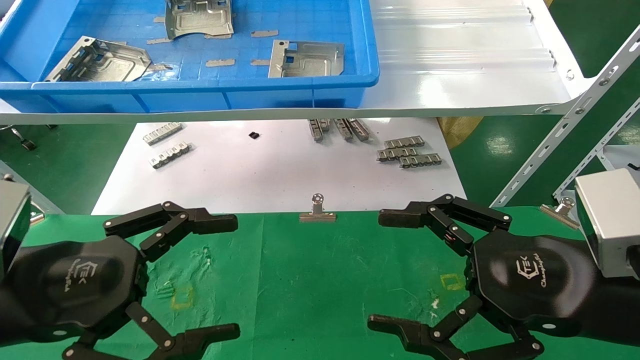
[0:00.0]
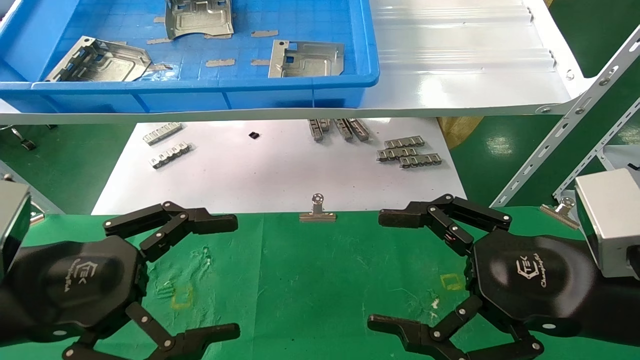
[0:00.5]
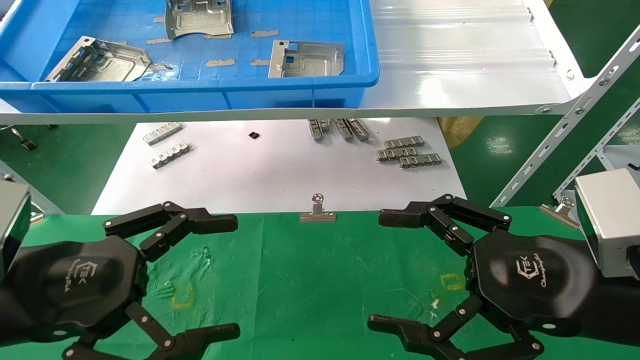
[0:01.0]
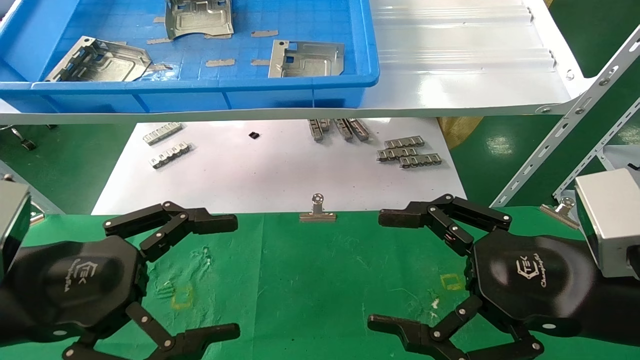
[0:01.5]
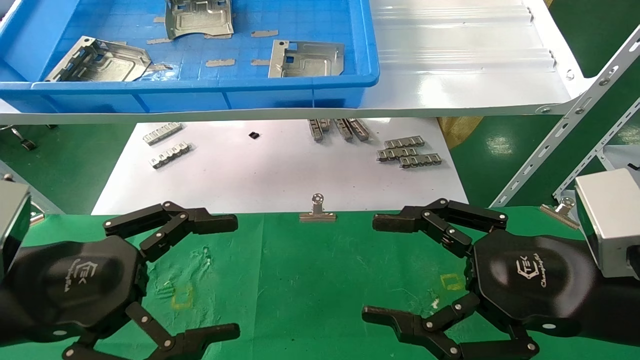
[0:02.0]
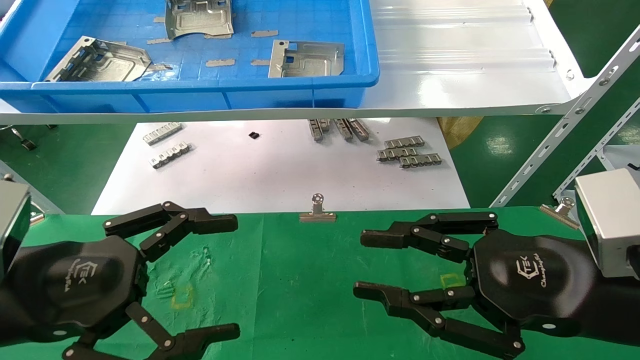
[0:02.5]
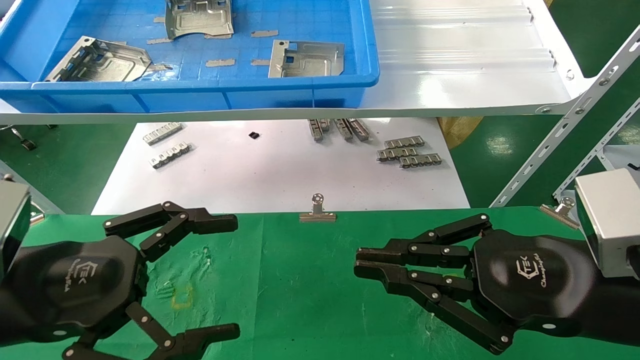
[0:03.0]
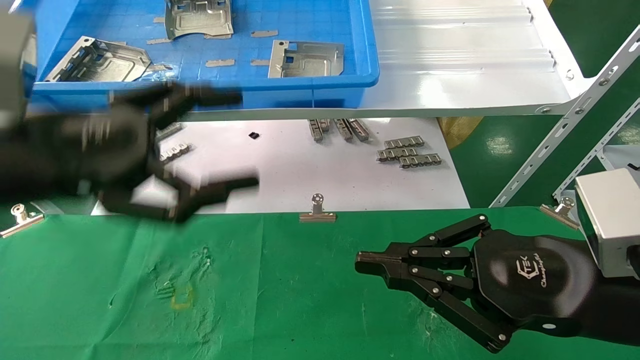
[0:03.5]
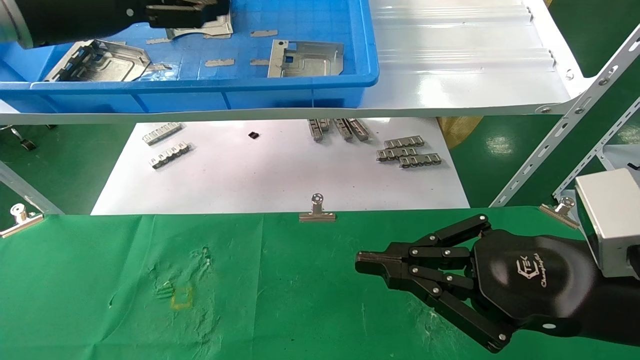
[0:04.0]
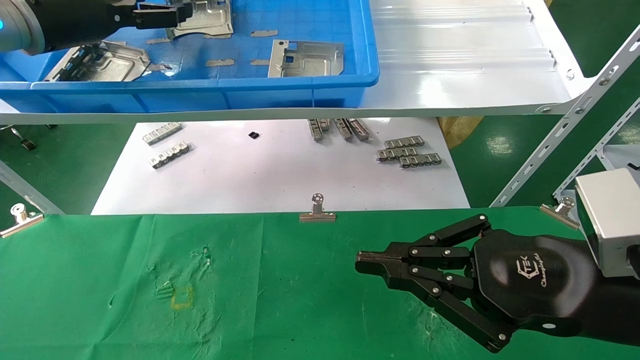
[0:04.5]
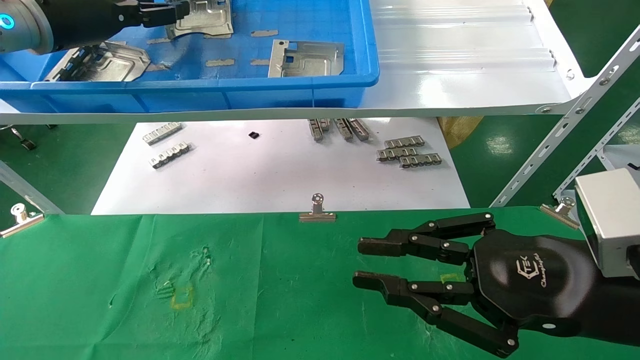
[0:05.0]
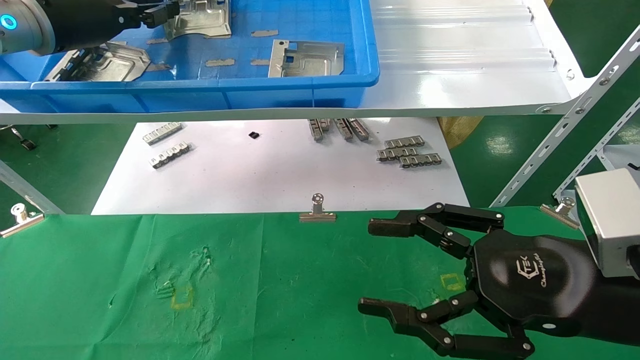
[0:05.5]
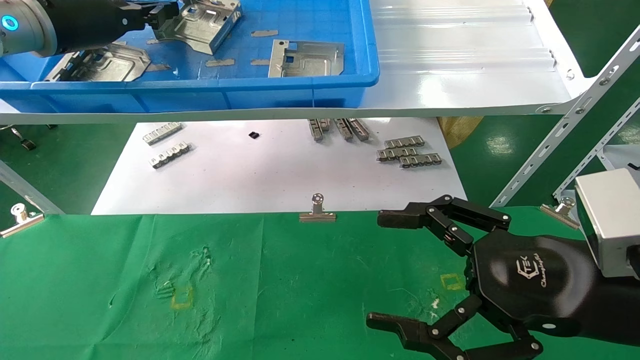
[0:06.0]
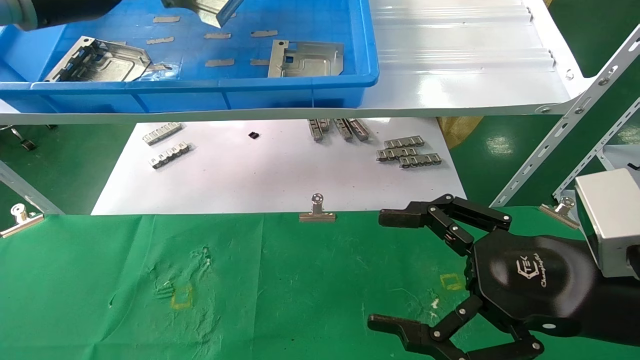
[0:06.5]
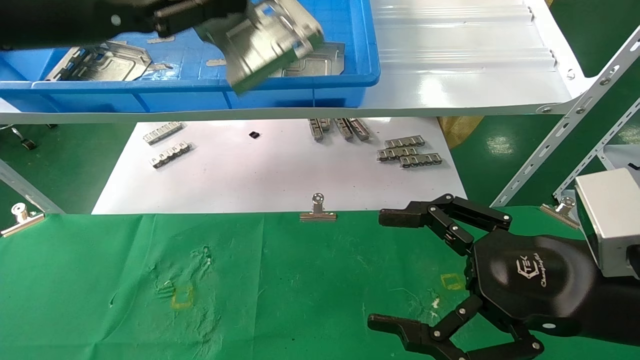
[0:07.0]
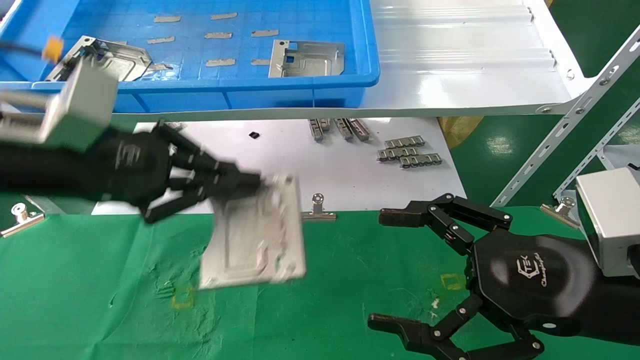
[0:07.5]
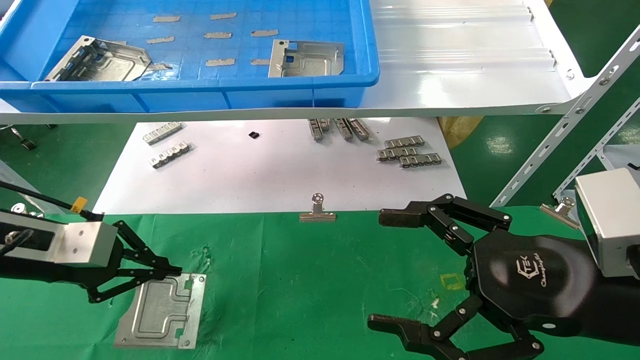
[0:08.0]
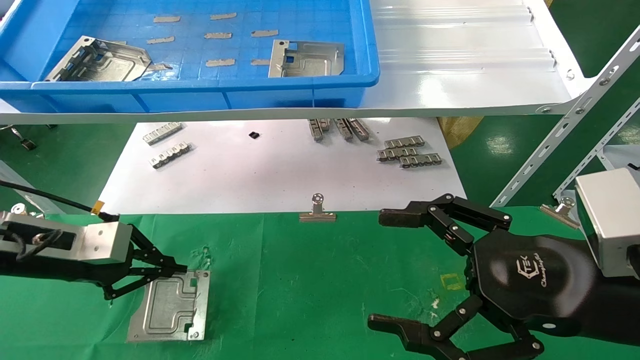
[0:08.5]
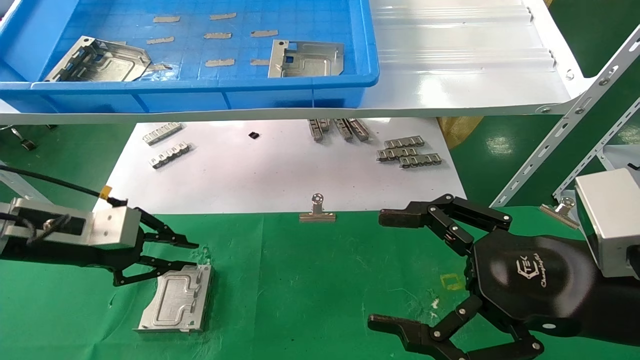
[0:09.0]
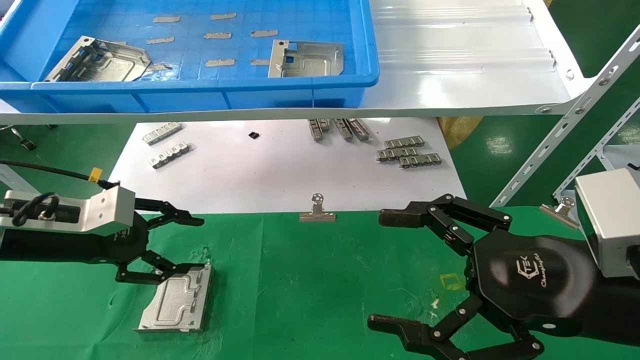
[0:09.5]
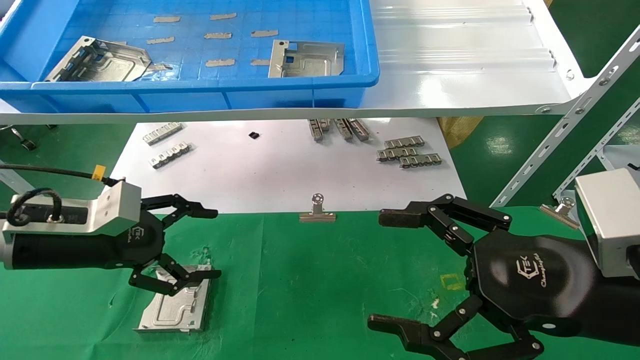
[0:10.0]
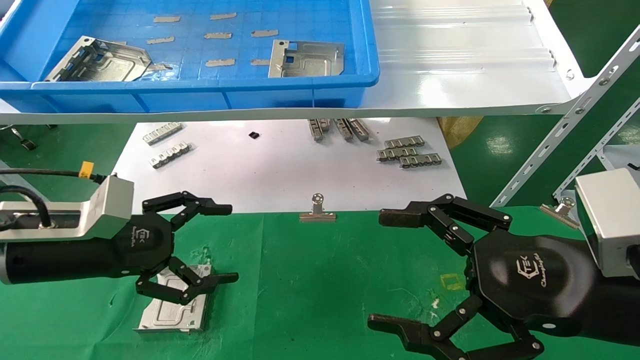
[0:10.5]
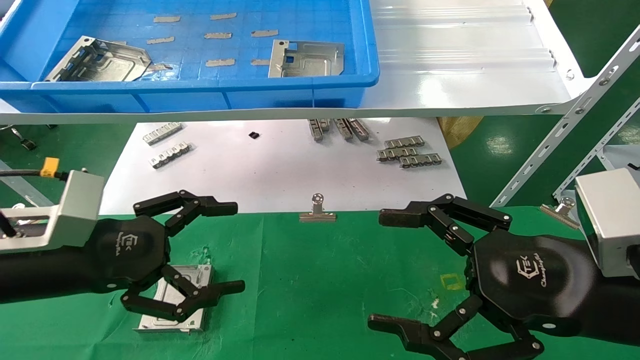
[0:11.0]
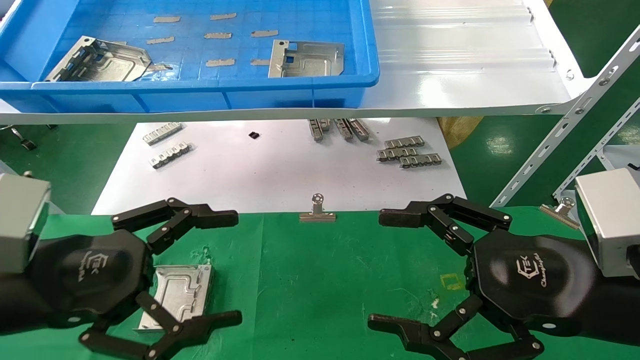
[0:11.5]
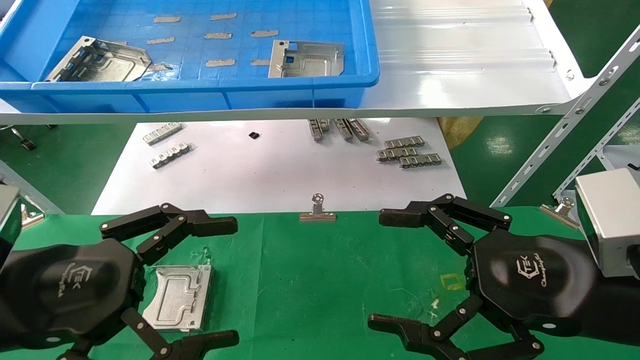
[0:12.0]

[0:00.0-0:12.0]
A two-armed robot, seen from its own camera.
Task of the whole recording: use the mechanical arm to pick up the parts and place them on the table.
Step, 0:03.5 to 0:06.0: Pick up the hard drive bracket from the feeding area.
Step, 0:06.5 to 0:09.0: Place the hard drive bracket into the box.
0:00.0 to 0:02.0: The two grippers keep their place.
0:02.0 to 0:04.0: The left gripper travels upward and forward by approximately 30 cm. Meanwhile the right gripper closes.
0:04.0 to 0:06.0: The left gripper shifts roughly 5 cm forward, and closes its fingers. Meanwhile the right gripper opens up.
0:06.0 to 0:08.0: The left gripper shifts roughly 25 cm downward and backward.
0:08.0 to 0:10.0: The left gripper opens up.
0:10.0 to 0:12.0: The left gripper is displaced backward by approximately 15 cm.

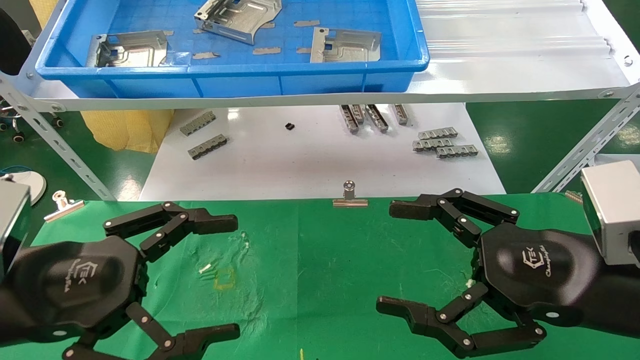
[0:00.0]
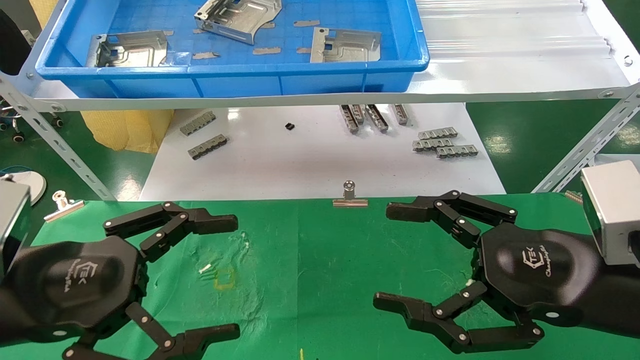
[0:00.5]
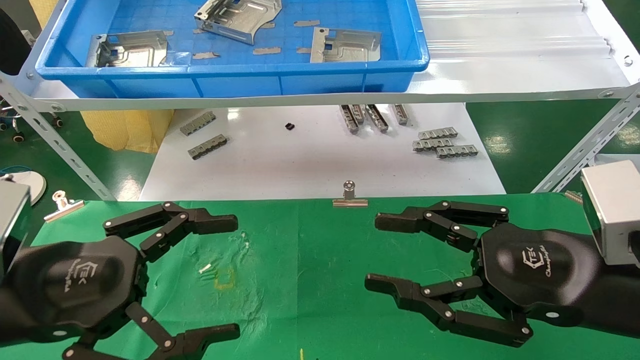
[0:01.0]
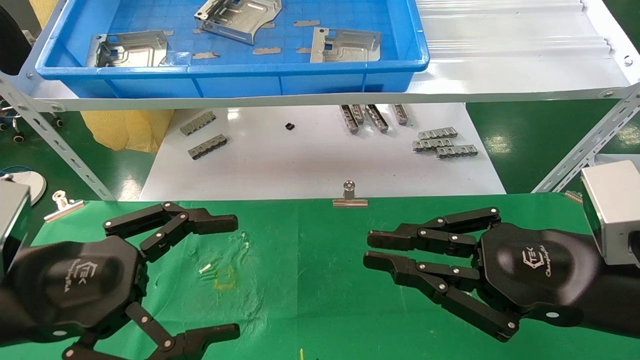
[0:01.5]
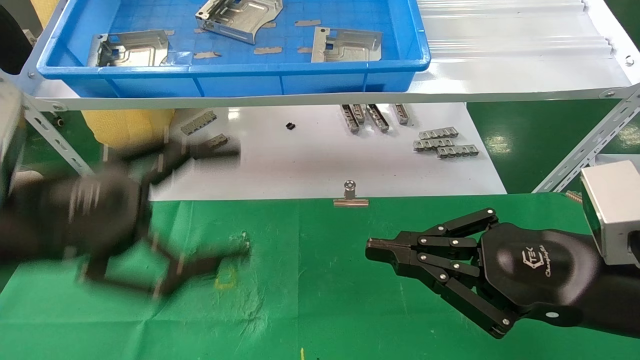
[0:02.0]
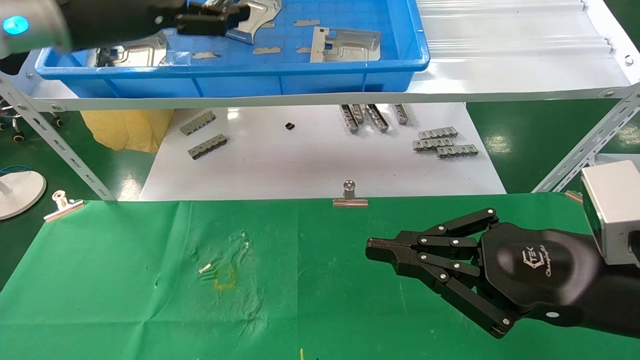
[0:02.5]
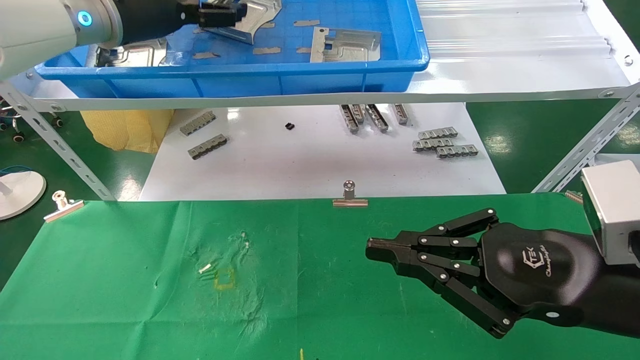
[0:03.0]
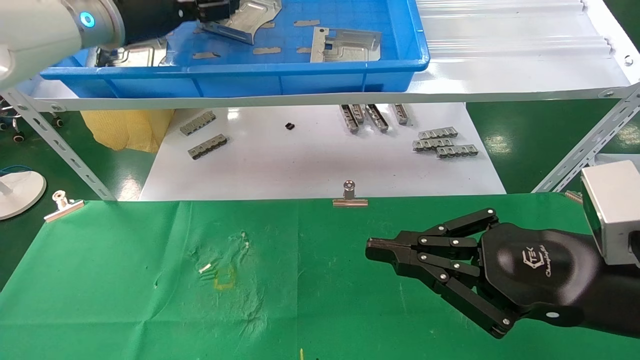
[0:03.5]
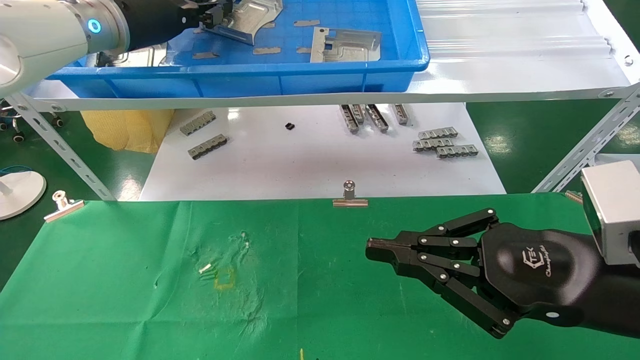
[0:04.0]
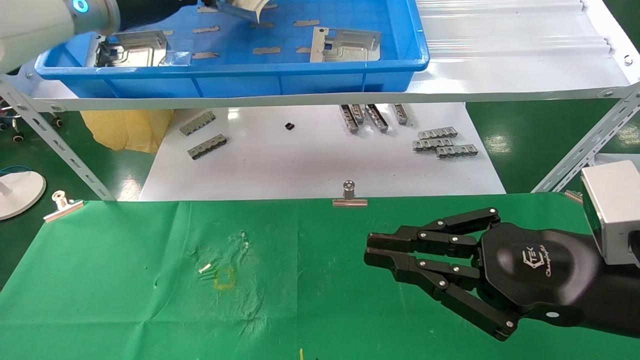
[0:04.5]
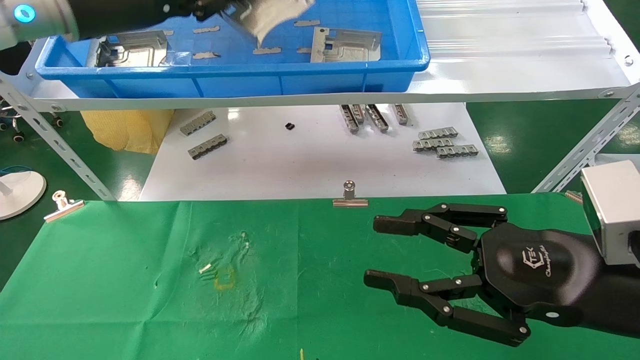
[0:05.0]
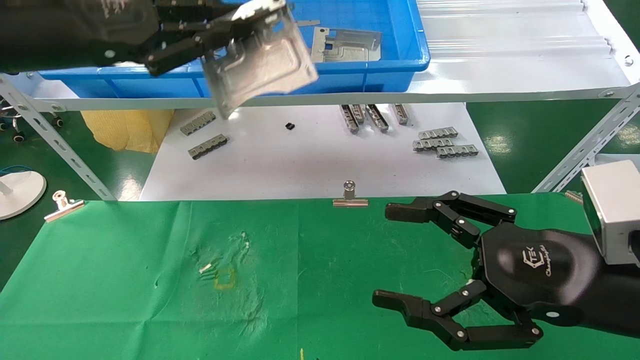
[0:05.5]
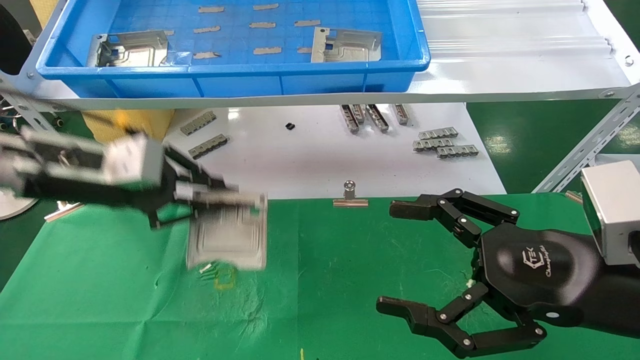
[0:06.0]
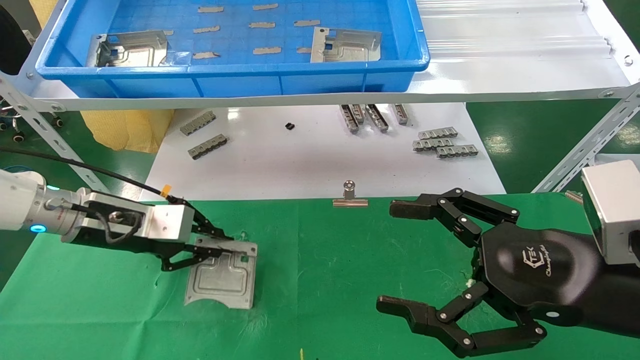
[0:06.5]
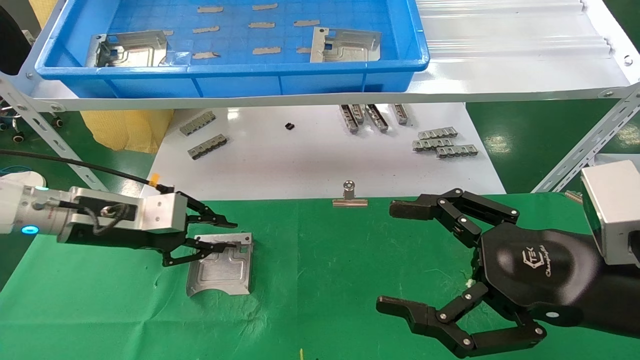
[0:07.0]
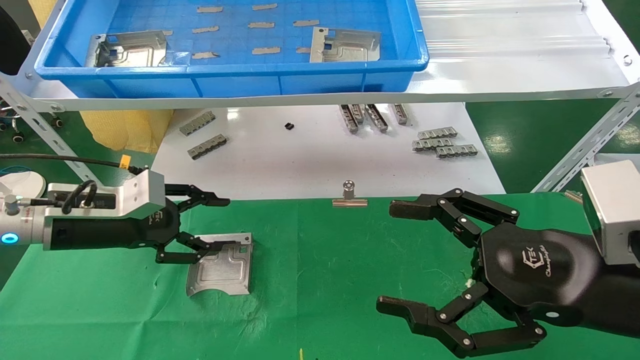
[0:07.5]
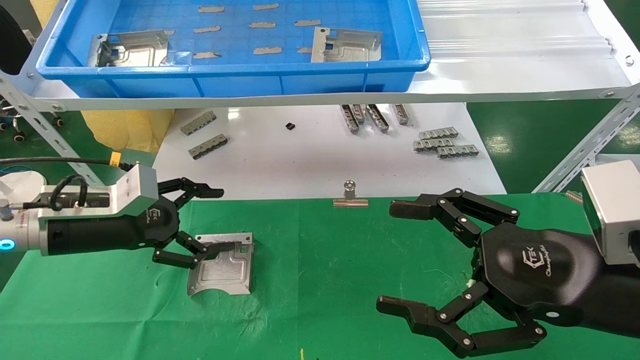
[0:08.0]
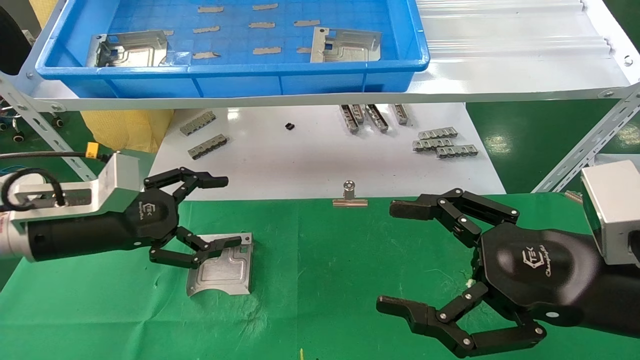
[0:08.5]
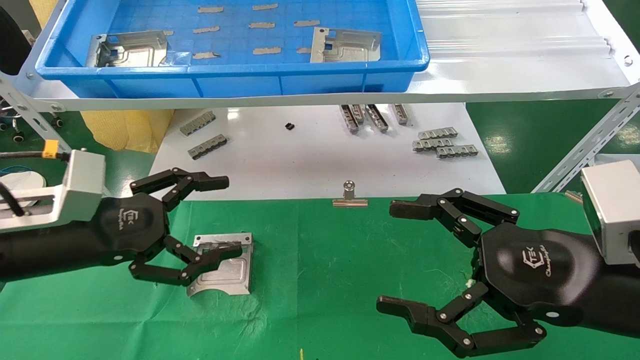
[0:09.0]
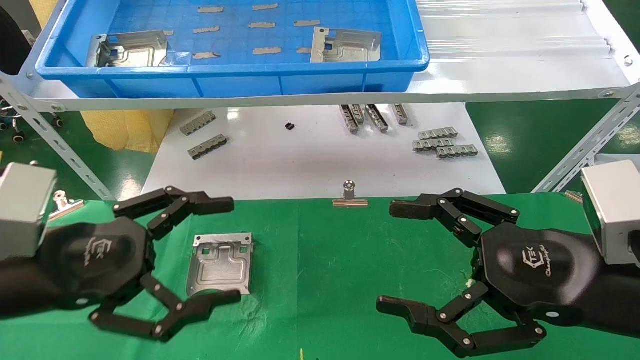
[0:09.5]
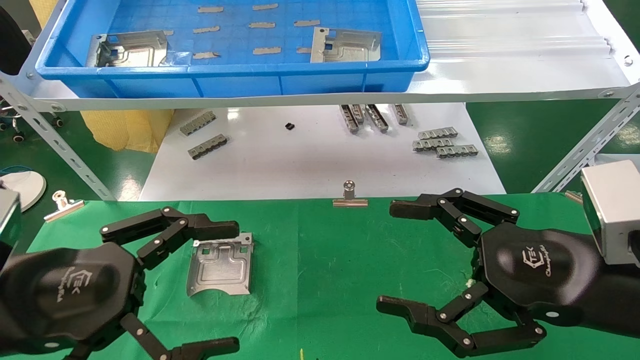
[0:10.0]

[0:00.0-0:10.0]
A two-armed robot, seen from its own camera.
Task of the whole recording: use the mechanical arm to pick up the parts and place them on the table.
Step, 0:01.5 to 0:04.5: Pick up the hard drive bracket from the feeding area.
Step, 0:05.0 to 0:07.0: Place the hard drive bracket into the box.
0:00.0 to 0:02.0: The right gripper closes its fingers, while the left gripper travels upward by roughly 10 cm.
0:02.0 to 0:04.0: The left gripper moves forward and upward, some 25 cm, and closes its fingers.
0:04.0 to 0:06.0: The right gripper opens. Meanwhile the left gripper heads downward and backward, covering some 20 cm.
0:06.0 to 0:08.0: The left gripper moves downward, roughly 10 cm, and opens up.
0:08.0 to 0:10.0: The left gripper moves backward, about 15 cm.
